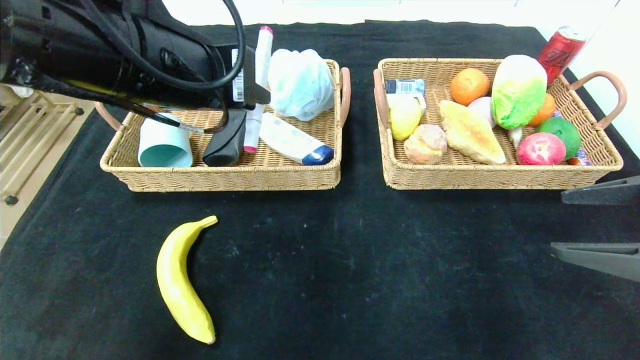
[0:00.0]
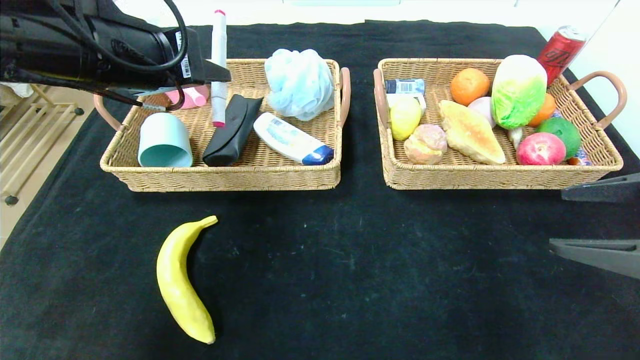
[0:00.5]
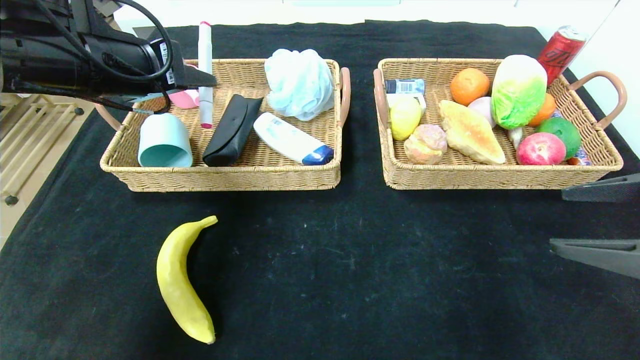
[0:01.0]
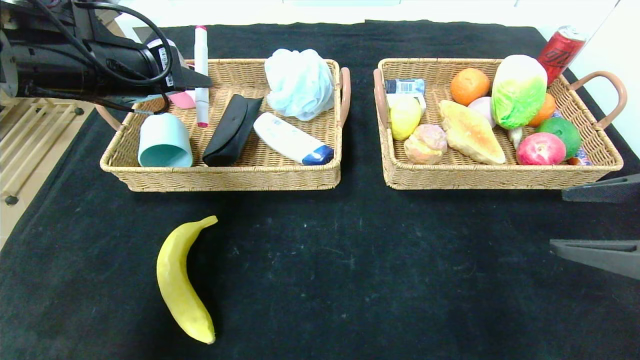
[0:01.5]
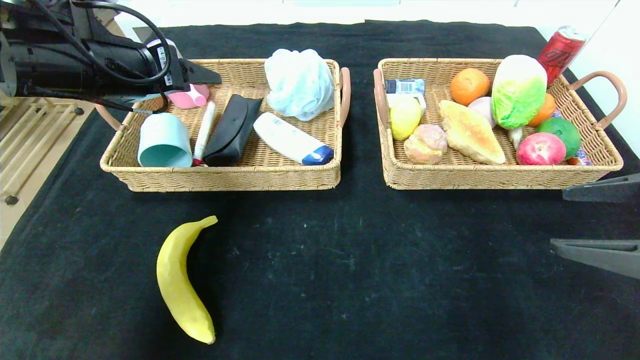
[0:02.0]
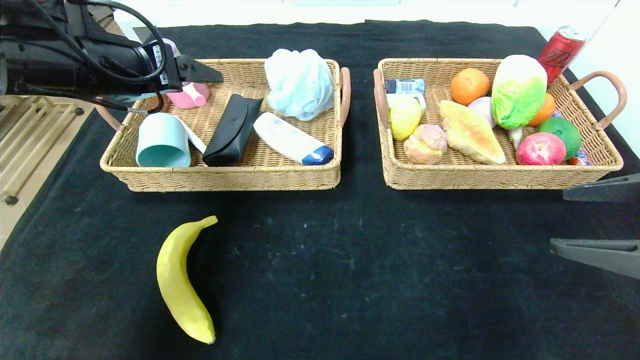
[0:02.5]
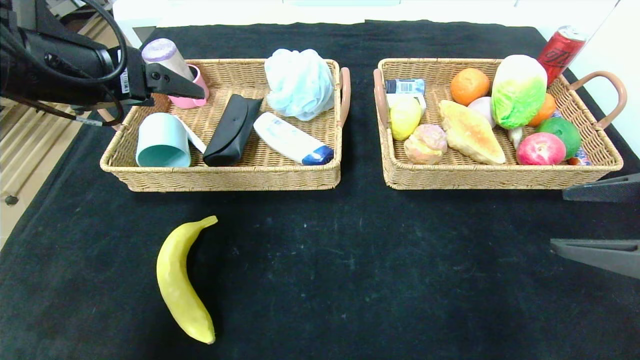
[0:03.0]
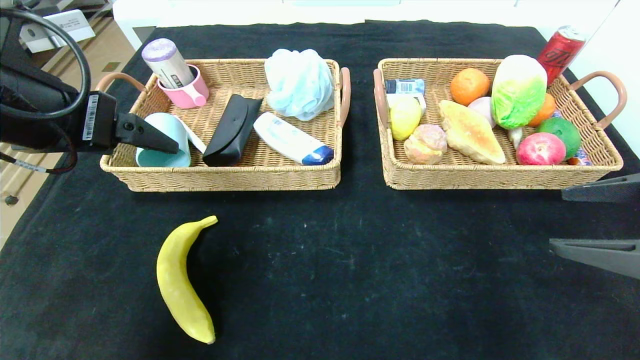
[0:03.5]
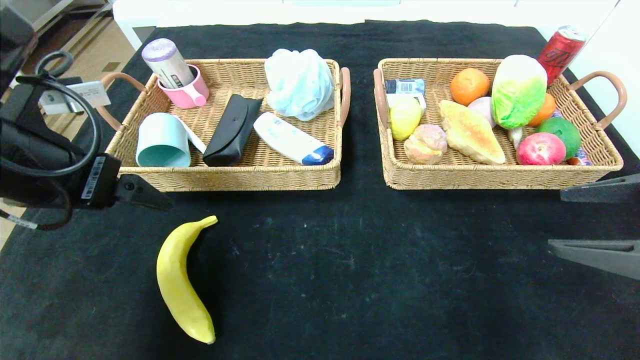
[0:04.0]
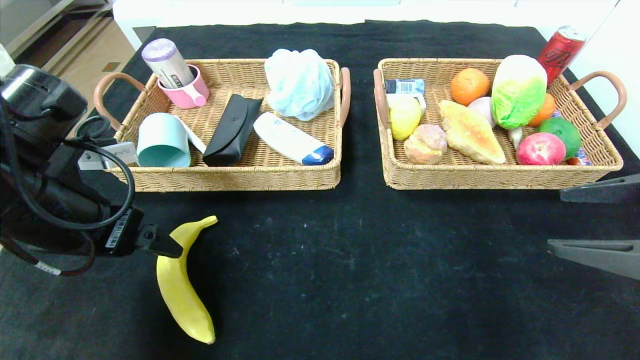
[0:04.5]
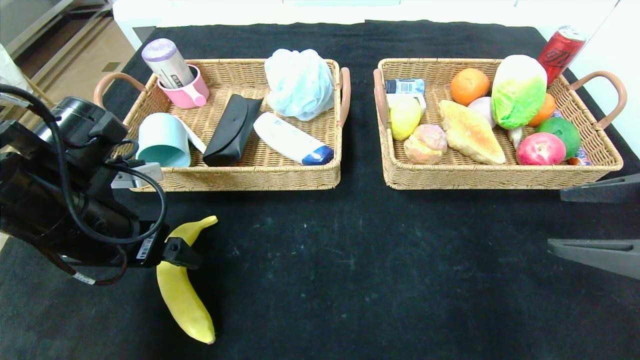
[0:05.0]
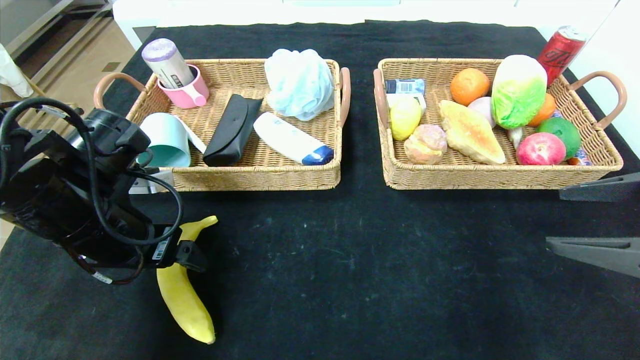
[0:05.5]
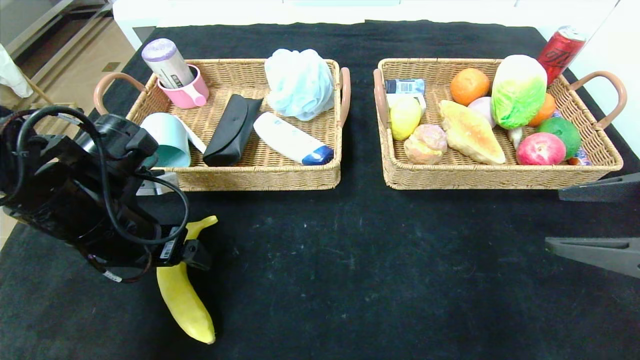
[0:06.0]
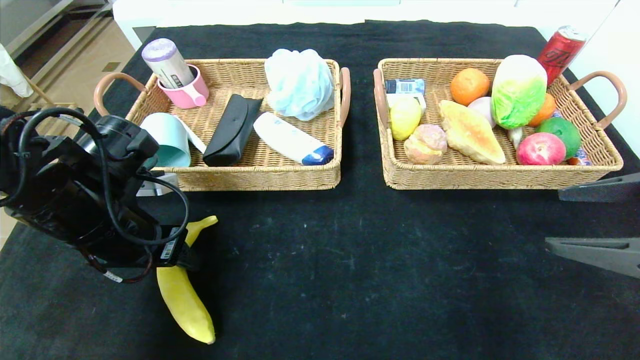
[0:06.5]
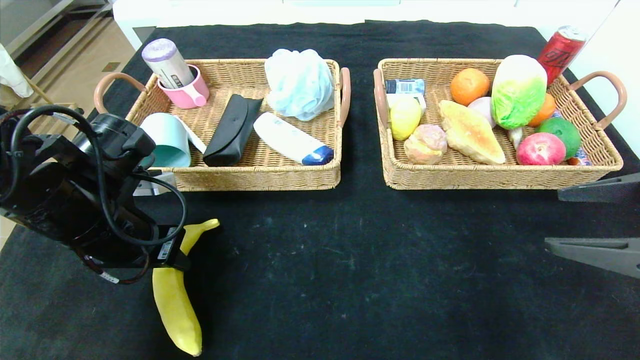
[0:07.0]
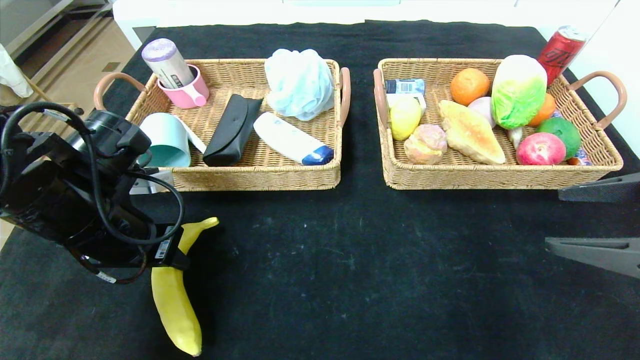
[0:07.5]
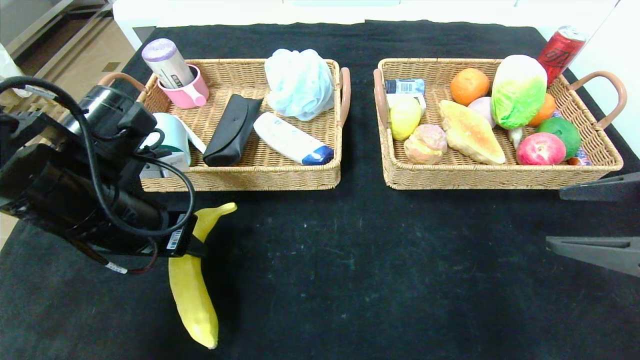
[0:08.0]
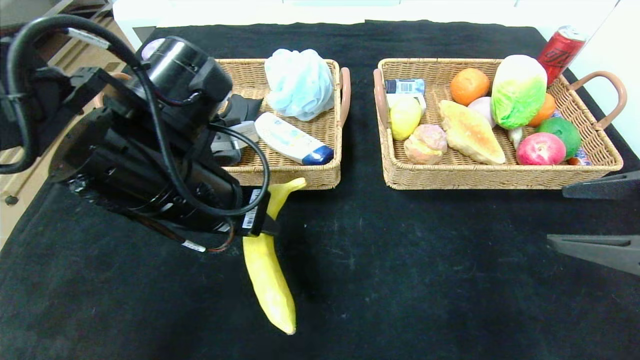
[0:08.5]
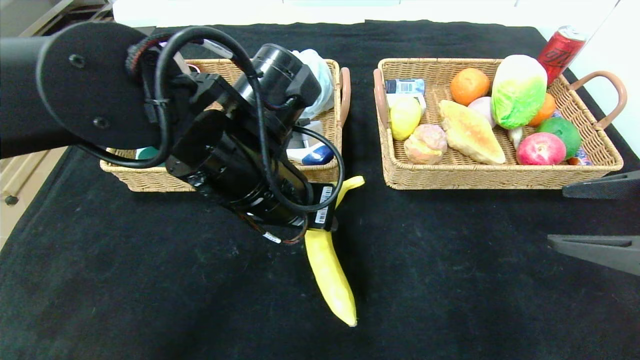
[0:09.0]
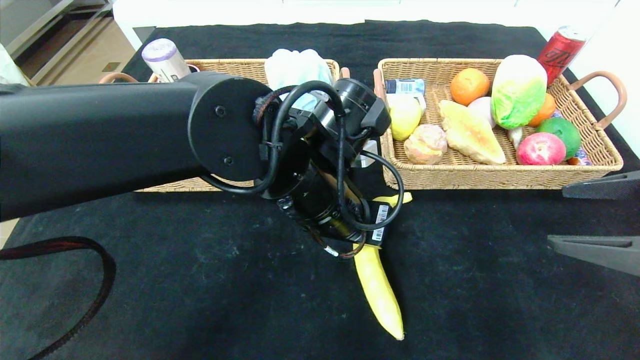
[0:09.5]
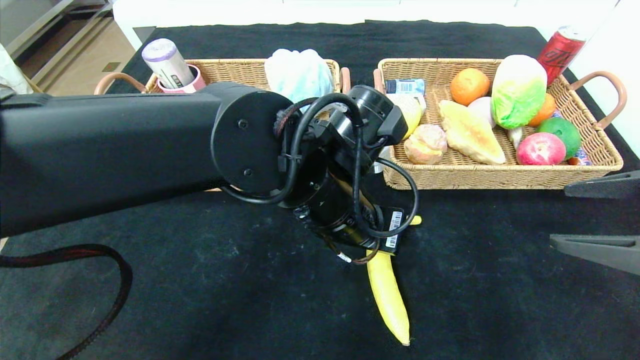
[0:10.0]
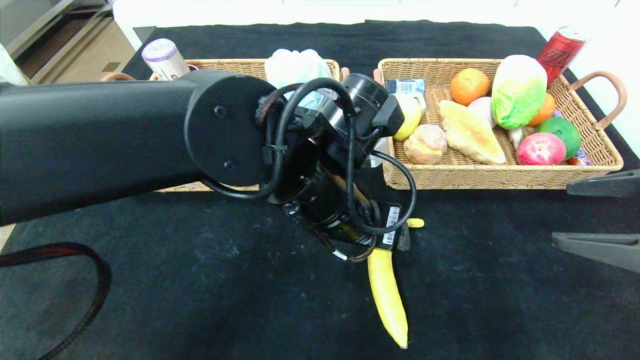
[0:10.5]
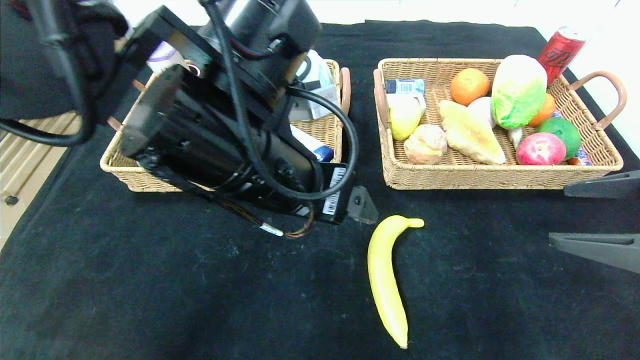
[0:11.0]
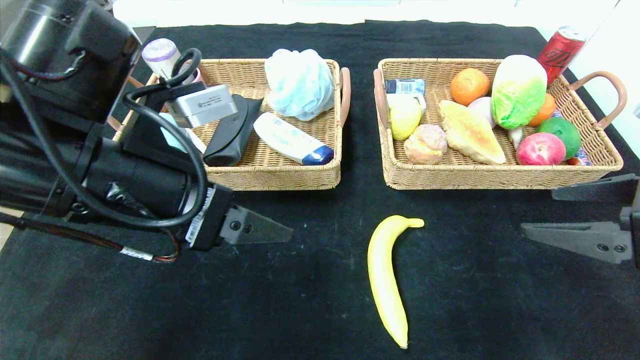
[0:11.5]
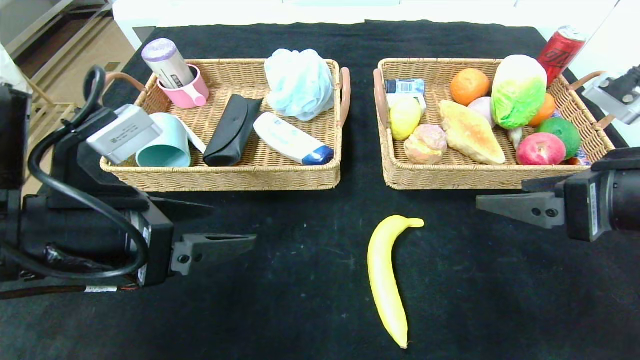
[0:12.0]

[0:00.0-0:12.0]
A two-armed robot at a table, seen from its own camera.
Step, 0:00.0 to 0:03.0: Grasp the pink marker and put it in the left basket.
Step, 0:03.5 to 0:11.0: Place the banana in the center of the table.
0:00.0 to 0:02.0: The left gripper heads to the left and forward, covering roughly 15 cm, and opens.
0:02.0 to 0:04.0: The left gripper moves backward, some 10 cm.
0:04.0 to 0:06.0: The left gripper shifts roughly 10 cm downward.
0:06.0 to 0:08.0: The left gripper closes up.
0:08.0 to 0:10.0: The left gripper shifts approximately 20 cm to the right.
0:10.0 to 0:12.0: The left gripper goes roughly 20 cm to the left, and opens its fingers; the right gripper is displaced to the left by about 5 cm.

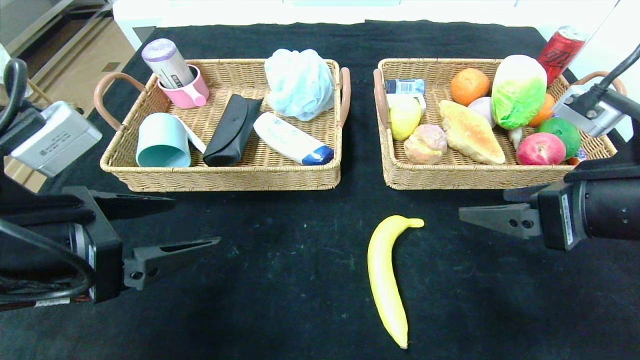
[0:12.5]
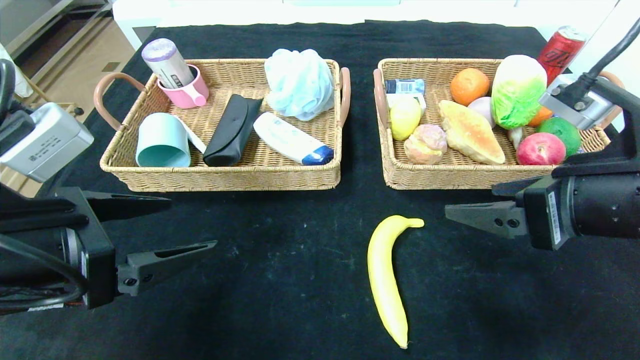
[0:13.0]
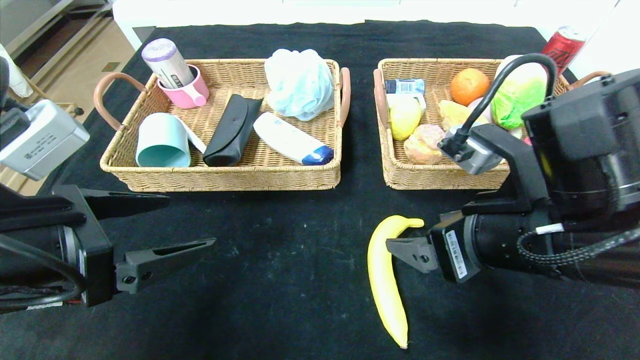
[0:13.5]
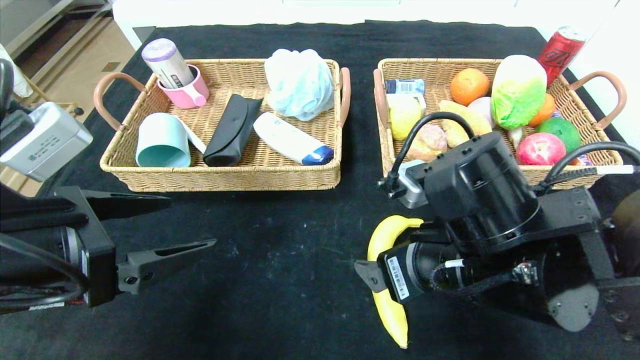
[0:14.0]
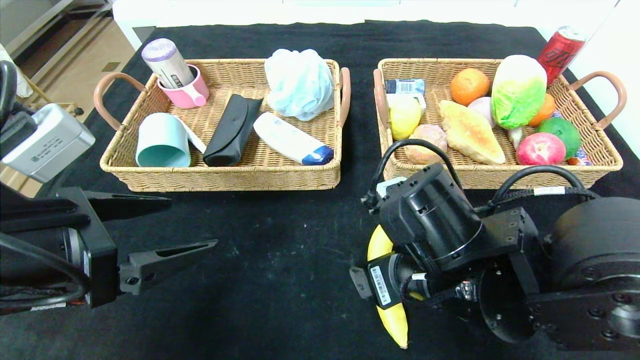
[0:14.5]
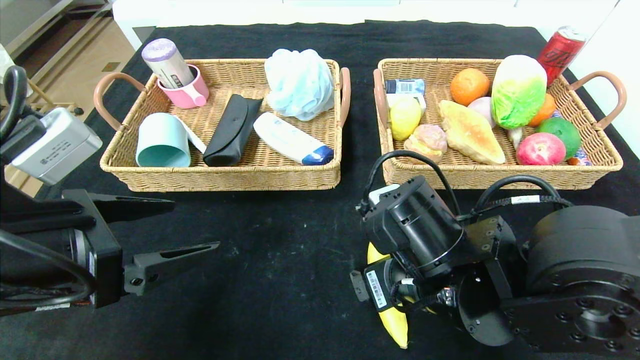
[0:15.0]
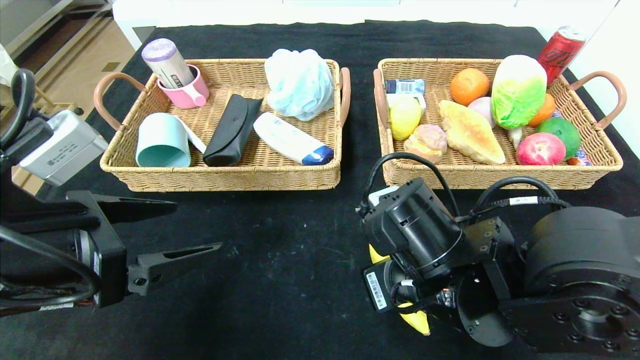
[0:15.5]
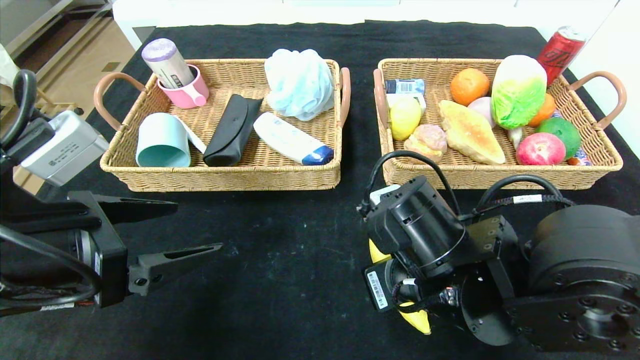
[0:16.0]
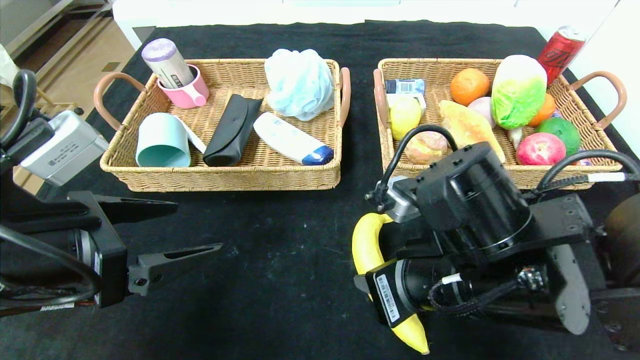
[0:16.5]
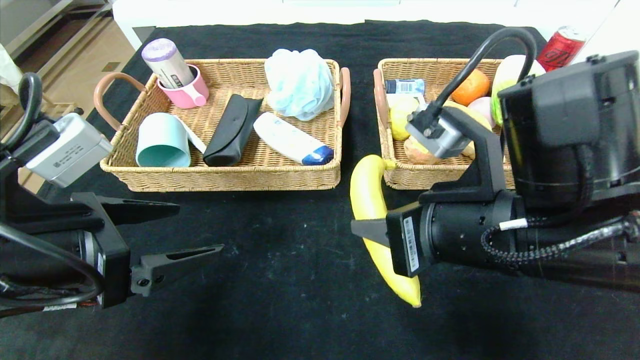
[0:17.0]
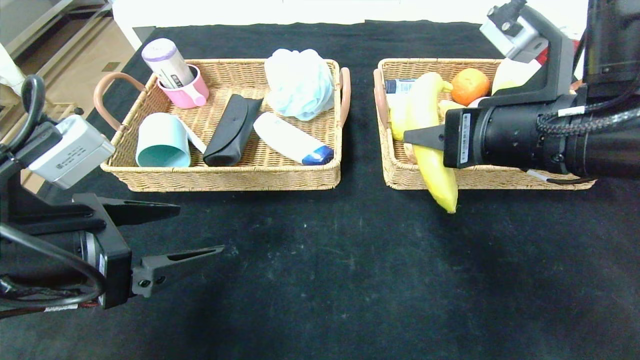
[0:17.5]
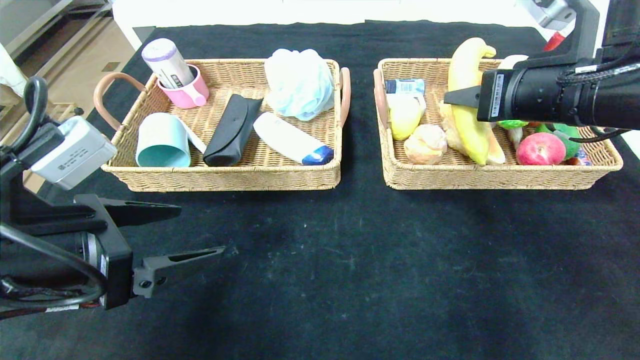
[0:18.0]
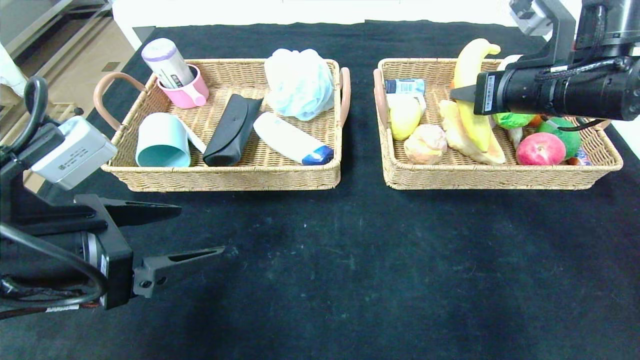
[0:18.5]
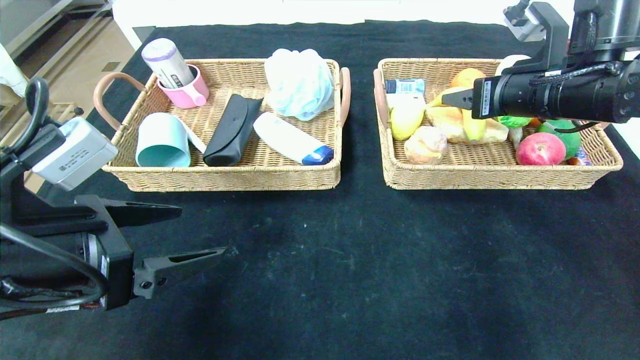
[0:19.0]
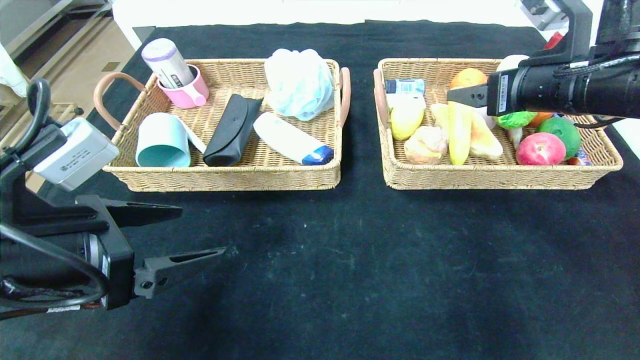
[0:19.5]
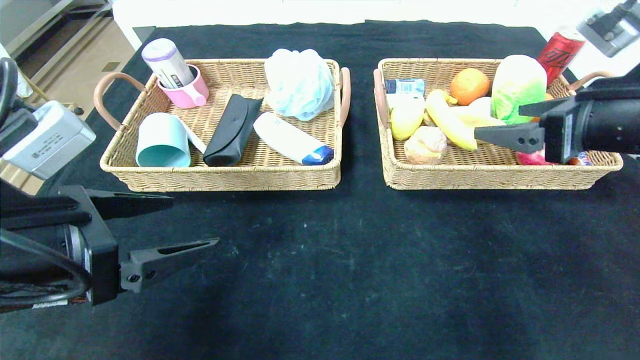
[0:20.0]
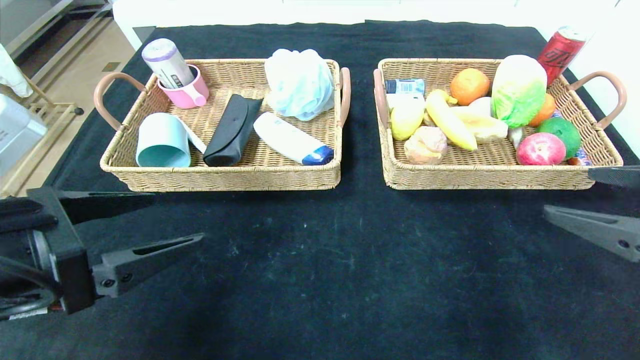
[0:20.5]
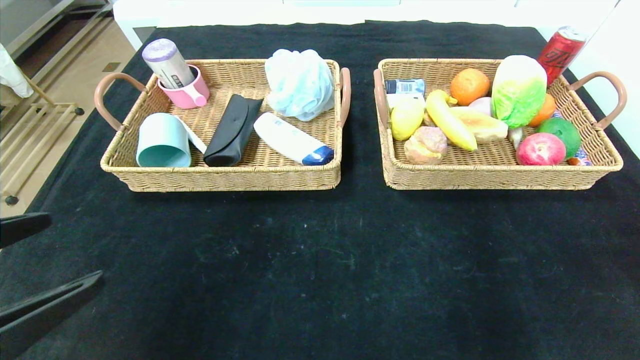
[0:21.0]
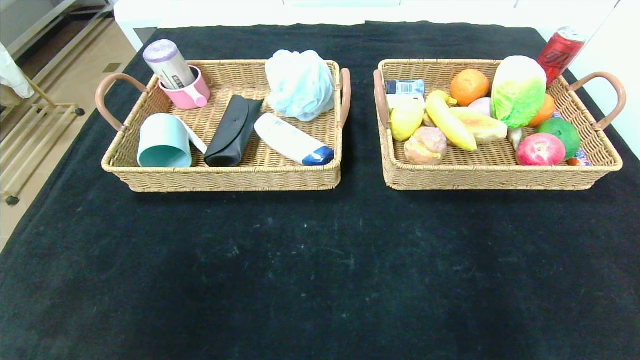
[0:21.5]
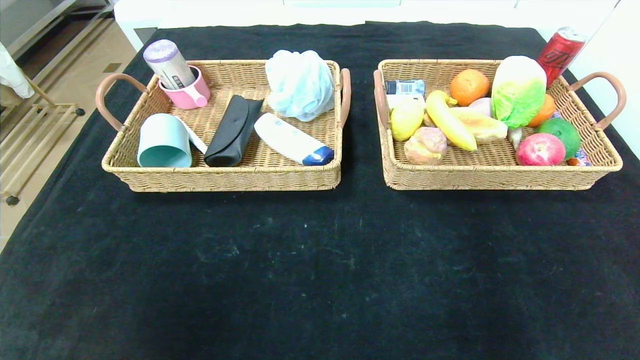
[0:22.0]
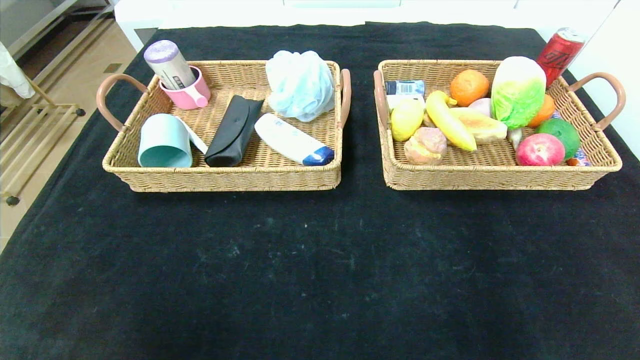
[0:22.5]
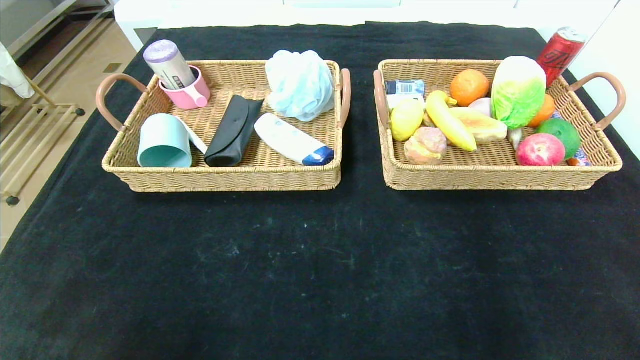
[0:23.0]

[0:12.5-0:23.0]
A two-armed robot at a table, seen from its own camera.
Step, 0:12.5 to 0:19.5: Grasp the banana and put it in the right basket.
0:12.5 to 0:14.5: The right gripper travels to the left and downward by roughly 15 cm.
0:14.5 to 0:16.5: The right gripper closes up.
0:16.5 to 0:19.0: The right gripper moves forward, to the right and upward, some 25 cm, and opens.
0:19.0 to 0:21.0: The right gripper moves backward, approximately 30 cm; the left gripper is displaced backward by approximately 10 cm.
0:21.0 to 0:23.0: The grippers both shift downward and backward by roughly 15 cm.
